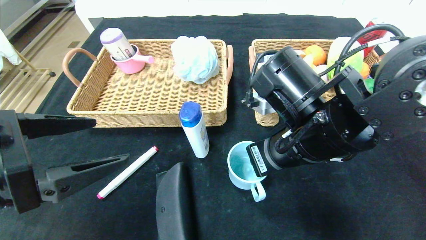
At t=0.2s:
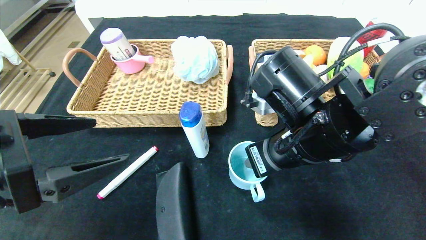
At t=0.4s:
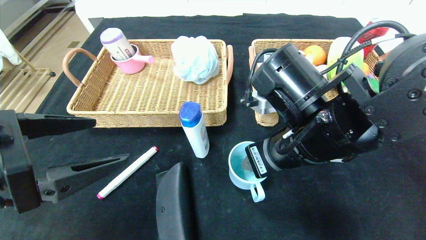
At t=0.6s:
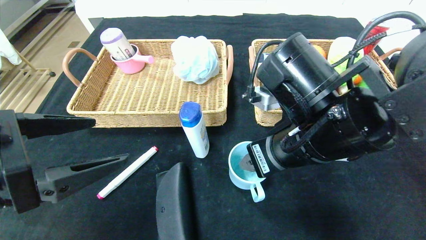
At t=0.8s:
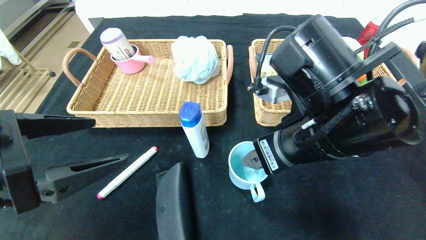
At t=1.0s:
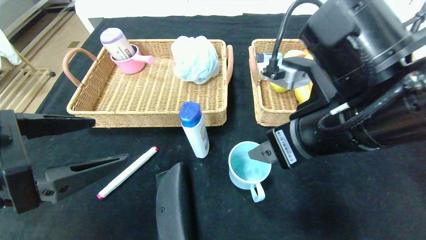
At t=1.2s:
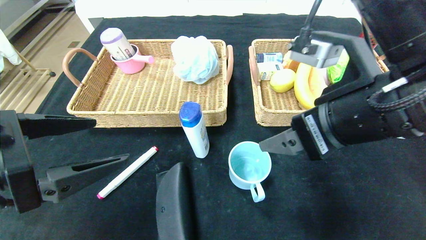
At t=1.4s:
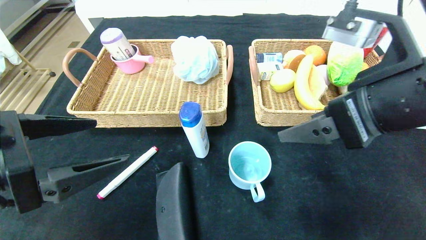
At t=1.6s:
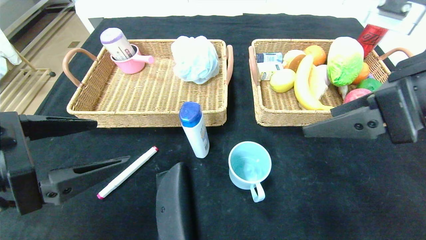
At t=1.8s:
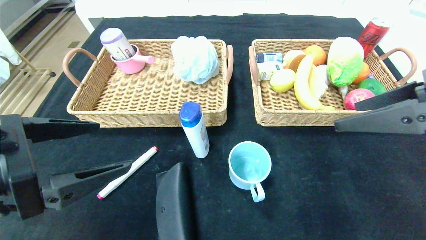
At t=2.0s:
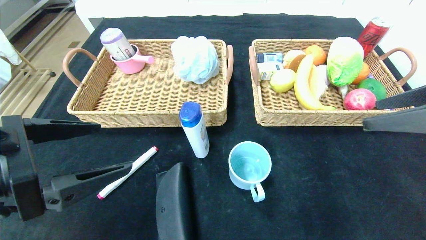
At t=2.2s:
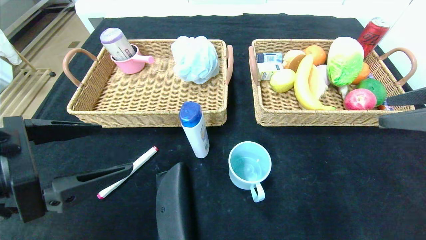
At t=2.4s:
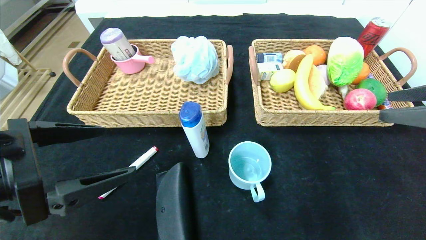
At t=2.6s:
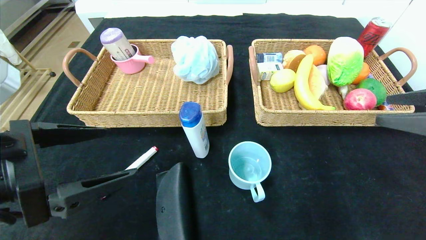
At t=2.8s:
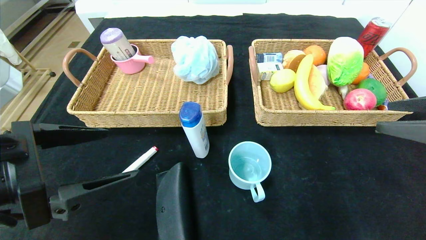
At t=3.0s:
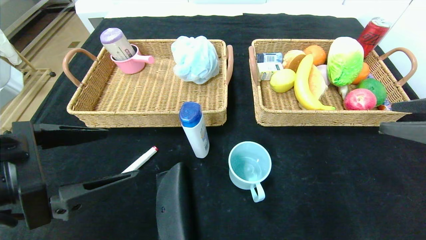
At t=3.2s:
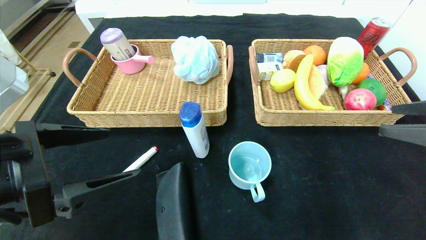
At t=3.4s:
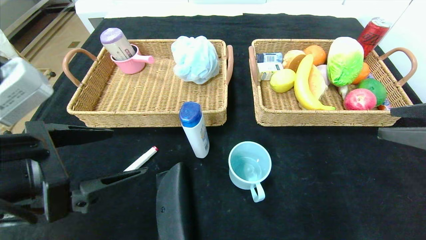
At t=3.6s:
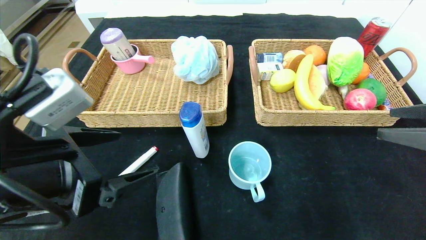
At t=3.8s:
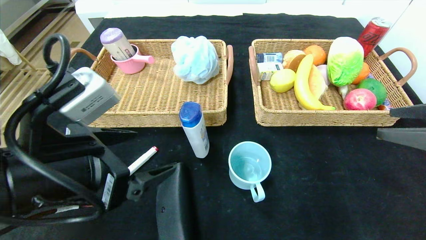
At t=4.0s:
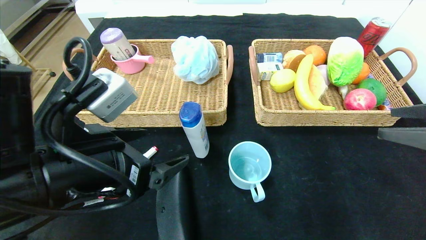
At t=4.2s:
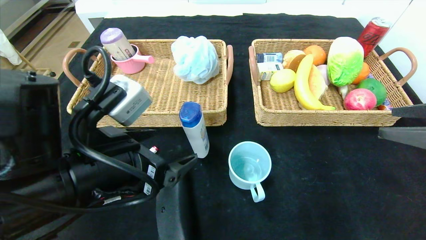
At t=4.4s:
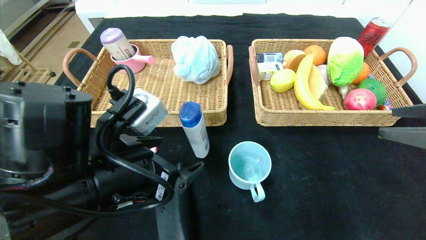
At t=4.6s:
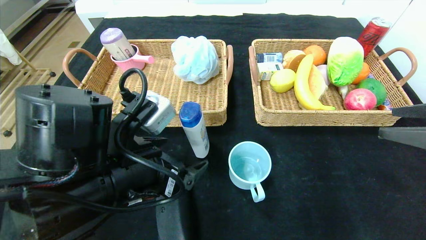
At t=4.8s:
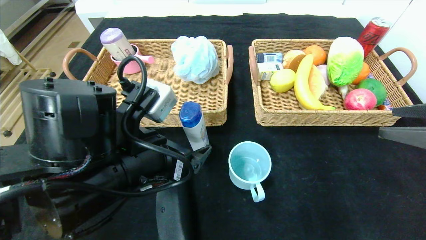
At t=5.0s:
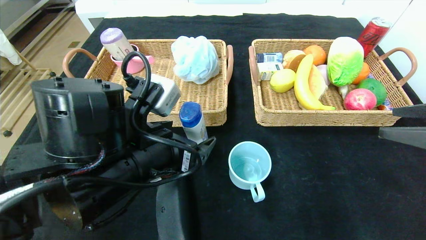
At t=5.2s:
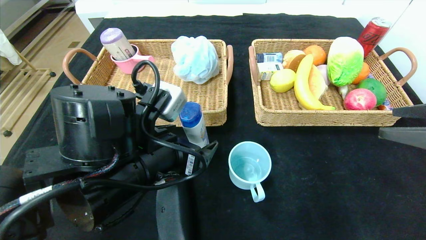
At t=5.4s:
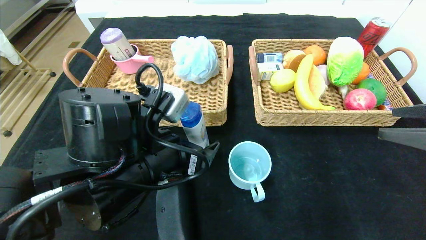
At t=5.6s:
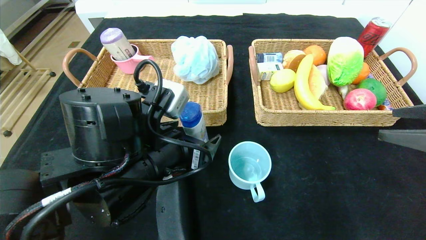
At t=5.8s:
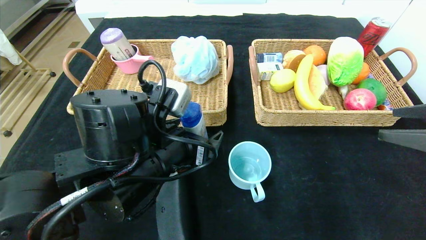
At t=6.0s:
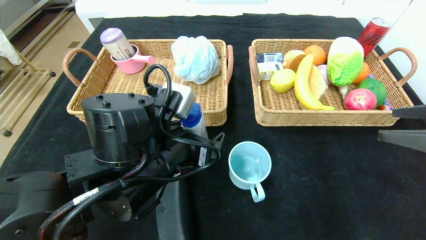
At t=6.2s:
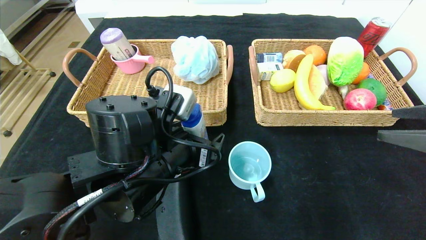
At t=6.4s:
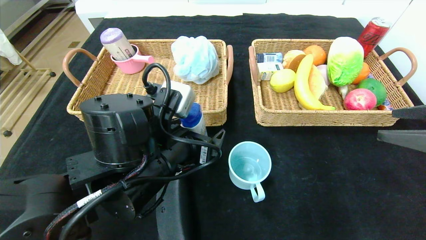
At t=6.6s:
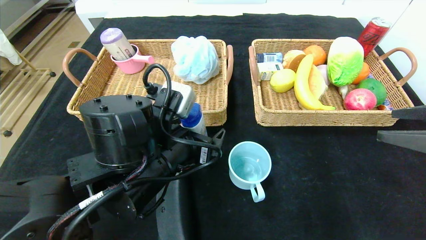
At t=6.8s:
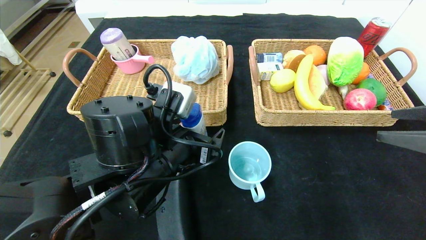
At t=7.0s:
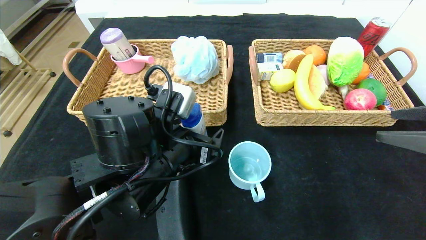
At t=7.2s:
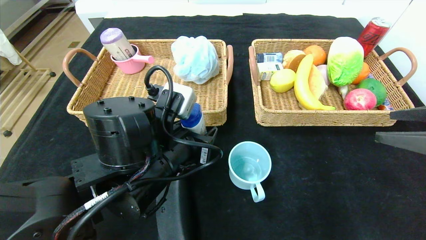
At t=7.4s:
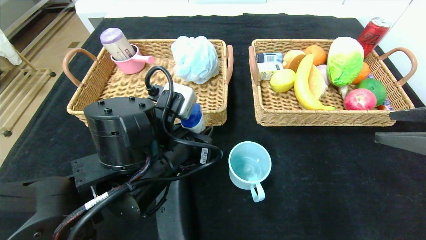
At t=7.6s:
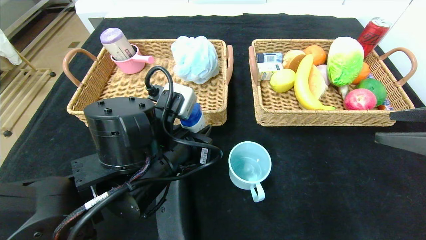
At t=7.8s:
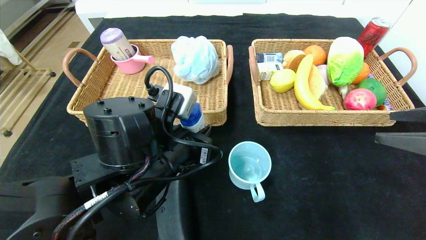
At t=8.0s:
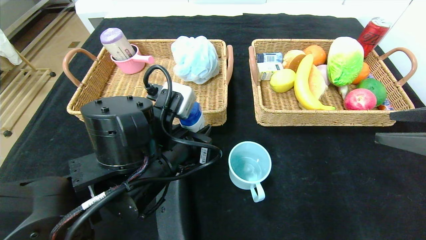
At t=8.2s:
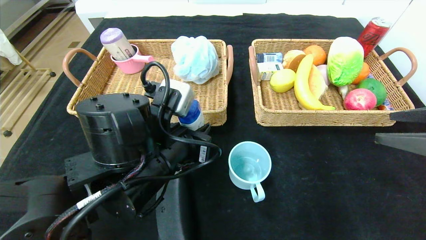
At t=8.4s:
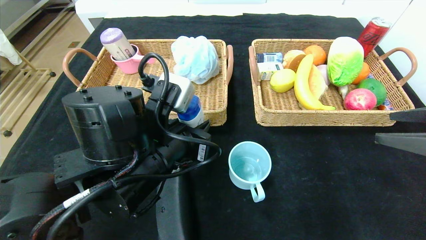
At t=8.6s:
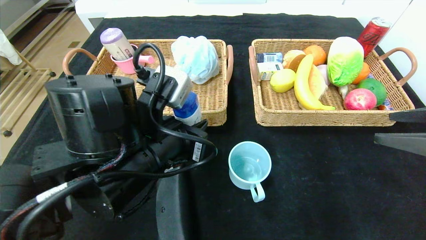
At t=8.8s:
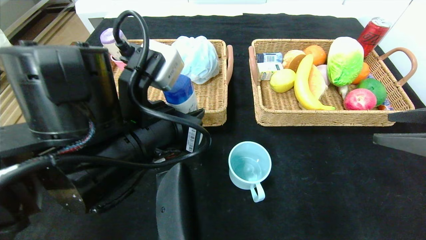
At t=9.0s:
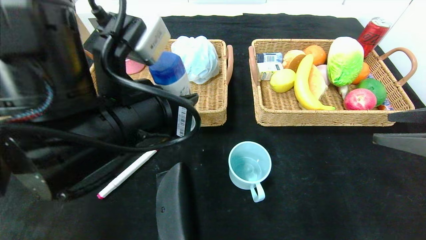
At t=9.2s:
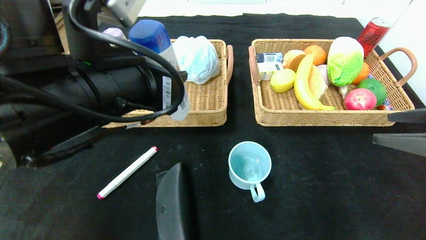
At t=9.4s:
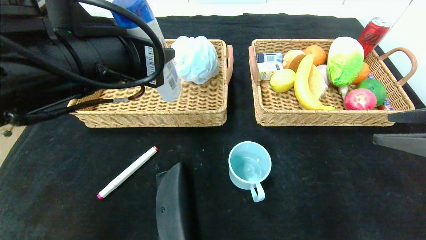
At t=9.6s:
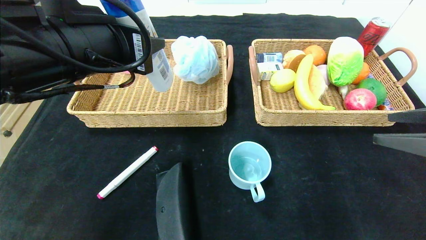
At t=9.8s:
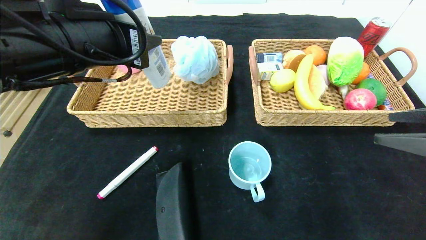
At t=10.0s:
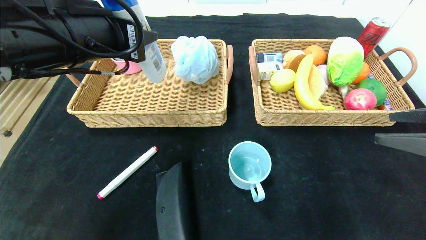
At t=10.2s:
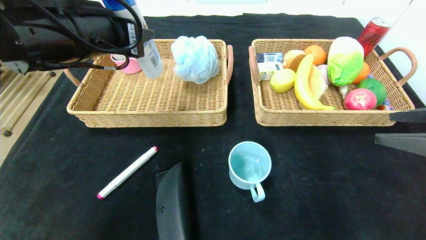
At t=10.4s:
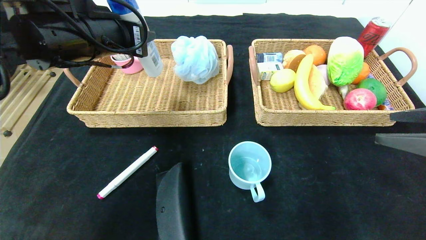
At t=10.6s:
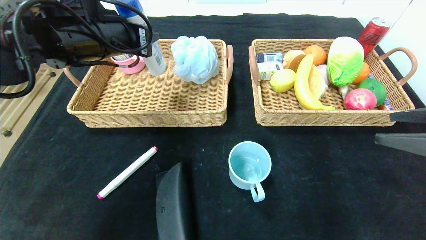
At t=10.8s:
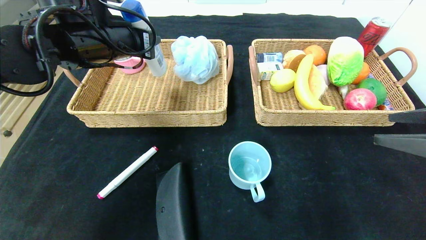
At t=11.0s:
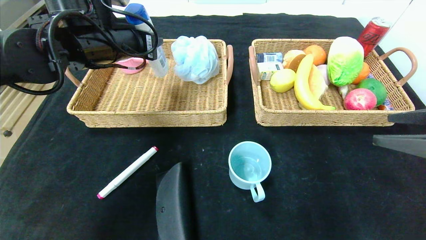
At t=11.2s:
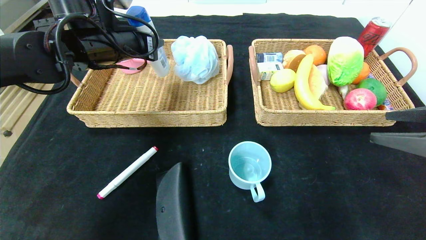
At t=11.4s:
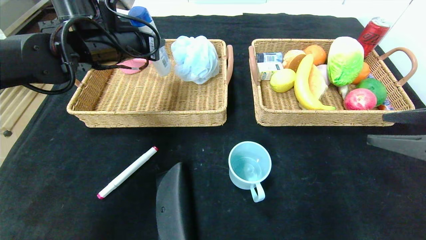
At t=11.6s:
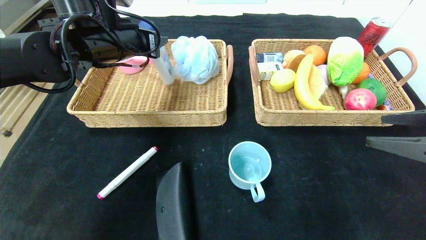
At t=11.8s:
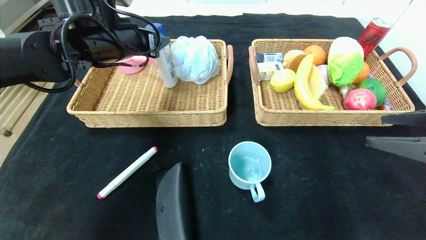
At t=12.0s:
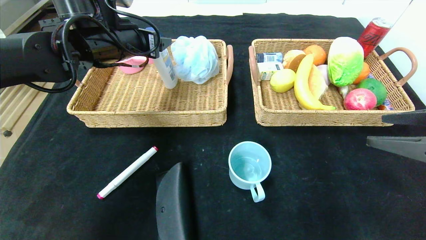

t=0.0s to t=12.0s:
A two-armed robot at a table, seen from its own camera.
t=0.0s to t=1.6s: The right gripper travels to the right, upward and backward by about 15 cm, and opens.
t=1.6s to t=3.0s: The right gripper moves to the right, about 10 cm.
t=3.0s to t=4.4s: The left gripper heads to the right, covering approximately 10 cm.
t=4.4s to t=6.0s: The left gripper moves roughly 5 cm.
t=6.0s to t=7.6s: The left gripper closes up.
t=7.6s to t=9.0s: The left gripper travels upward by some 10 cm.
t=9.0s to t=10.4s: The left gripper shifts approximately 15 cm forward, to the left and upward.
t=10.4s to t=12.0s: The left gripper is displaced forward by roughly 10 cm, and opens.

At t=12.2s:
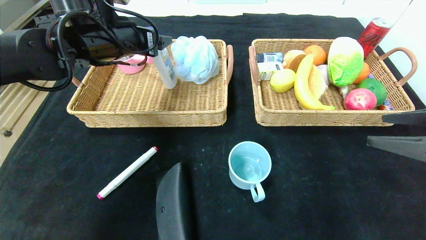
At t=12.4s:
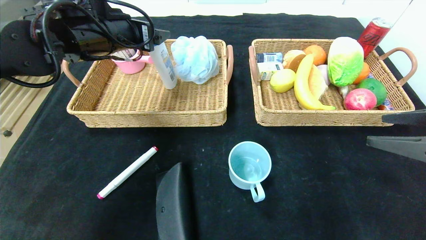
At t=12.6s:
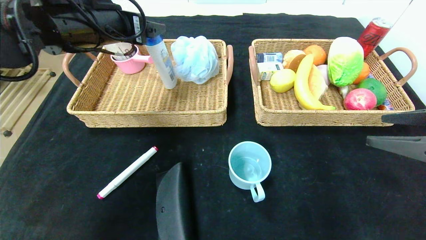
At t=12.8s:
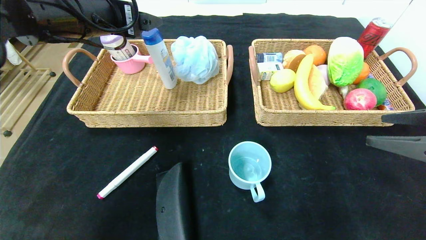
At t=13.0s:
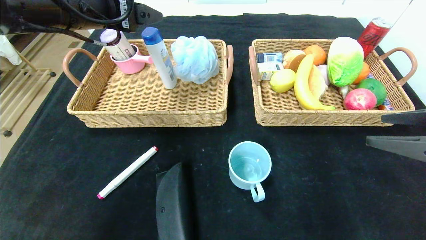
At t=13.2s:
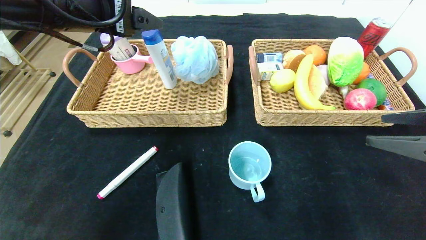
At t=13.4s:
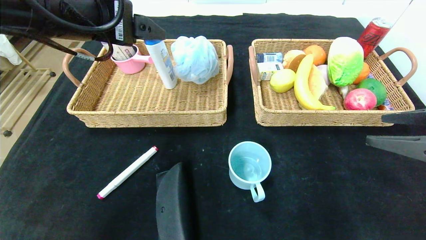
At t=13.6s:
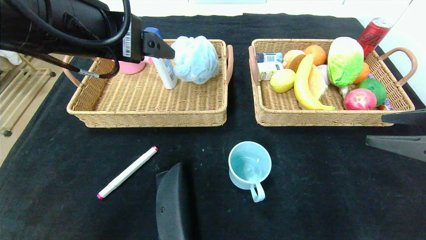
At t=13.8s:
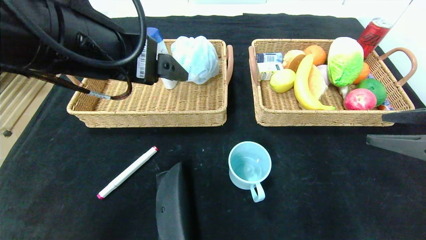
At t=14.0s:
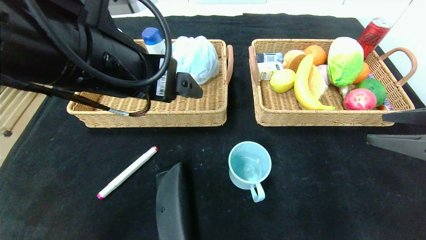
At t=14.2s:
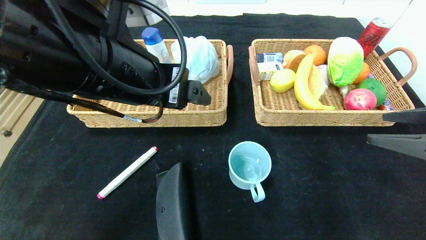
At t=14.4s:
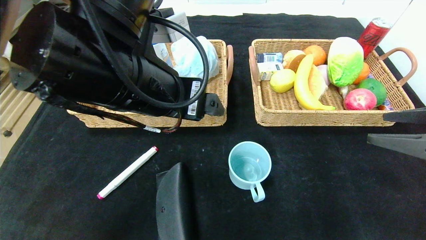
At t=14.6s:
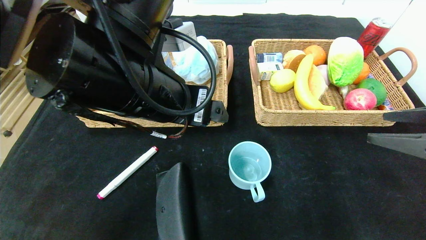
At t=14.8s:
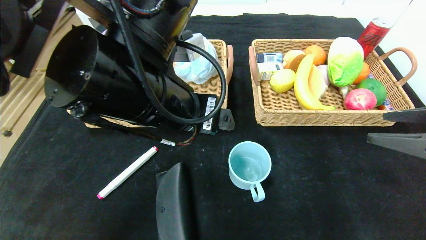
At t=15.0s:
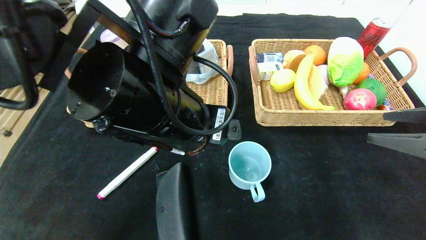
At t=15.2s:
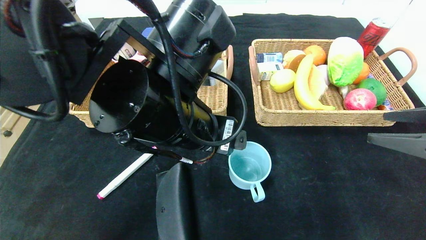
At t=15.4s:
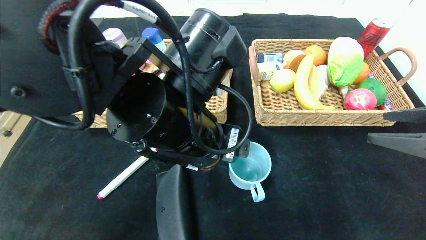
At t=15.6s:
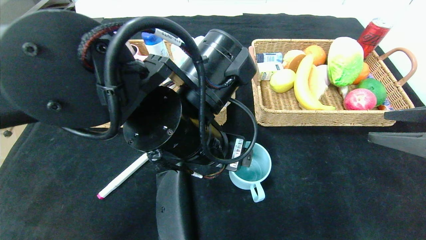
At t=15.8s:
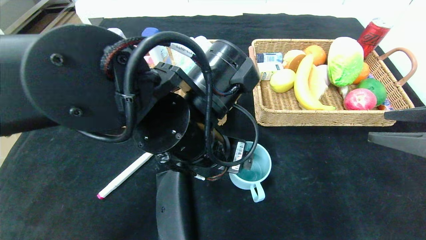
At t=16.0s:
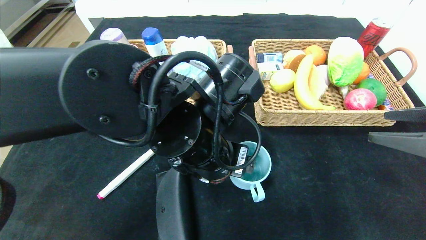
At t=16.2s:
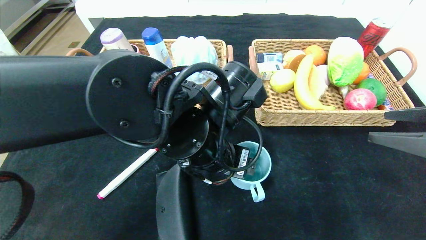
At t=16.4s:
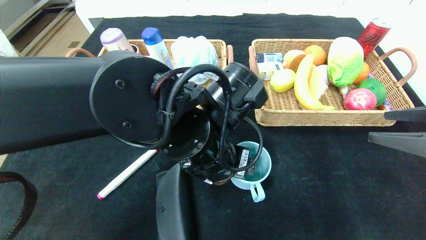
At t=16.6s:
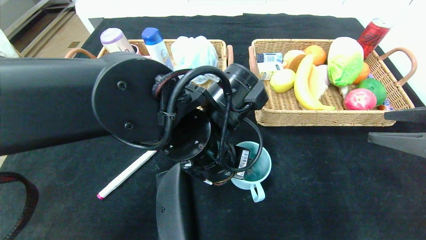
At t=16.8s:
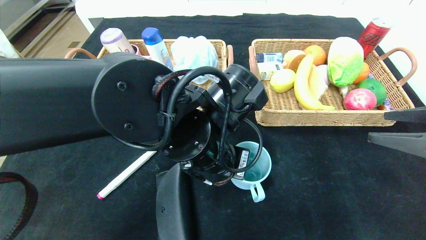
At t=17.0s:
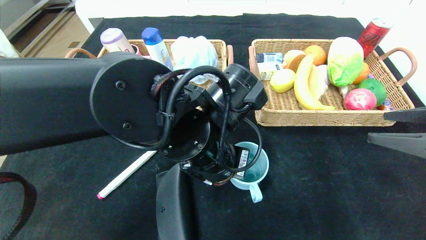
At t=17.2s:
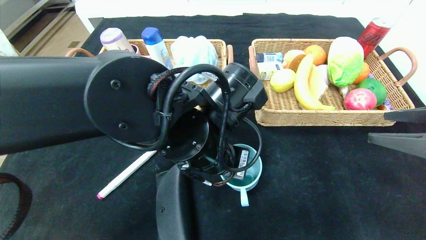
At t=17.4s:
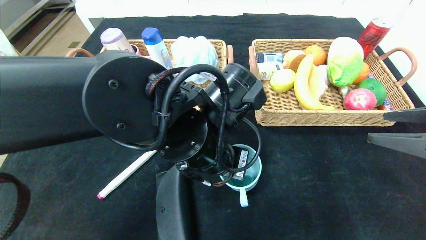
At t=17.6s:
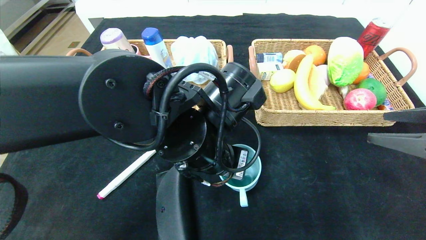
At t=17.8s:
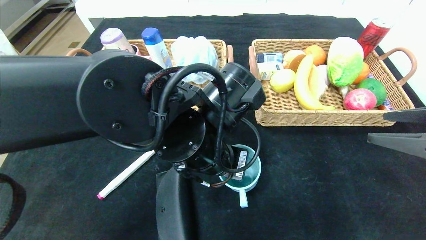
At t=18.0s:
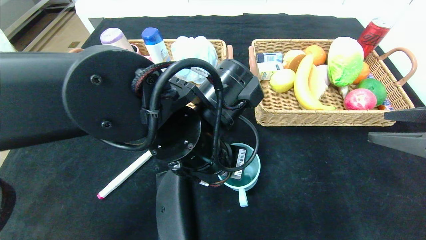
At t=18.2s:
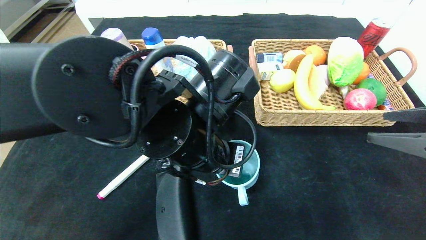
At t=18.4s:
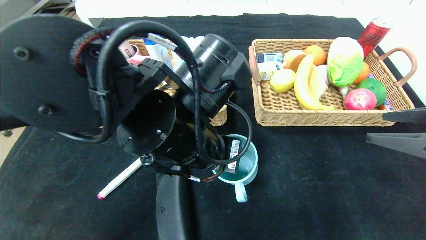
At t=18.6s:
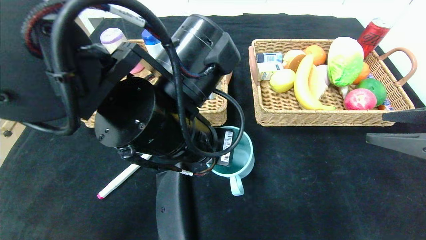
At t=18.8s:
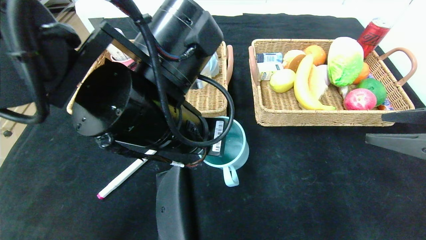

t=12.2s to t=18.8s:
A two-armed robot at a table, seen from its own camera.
t=12.2s to t=13.8s: The left gripper shifts approximately 15 cm backward.
t=13.8s to t=15.4s: The left gripper is displaced to the right and downward by roughly 15 cm.
t=15.4s to t=17.2s: The left gripper closes up.
t=17.2s to t=18.8s: The left gripper moves upward, some 5 cm.
